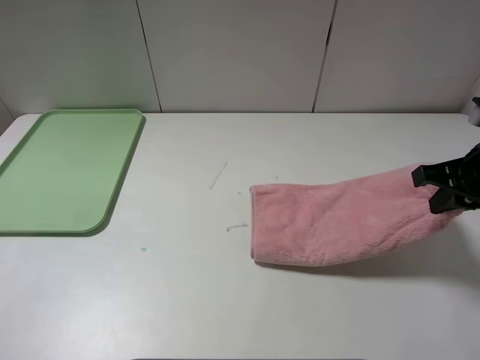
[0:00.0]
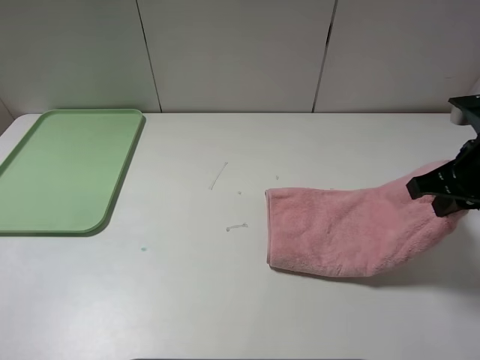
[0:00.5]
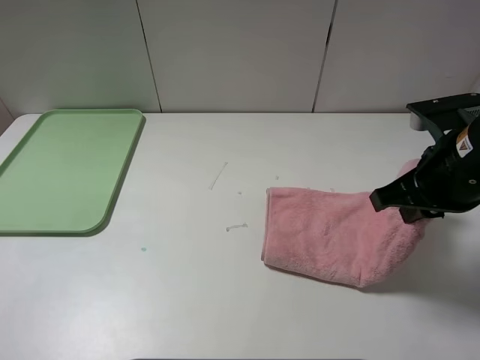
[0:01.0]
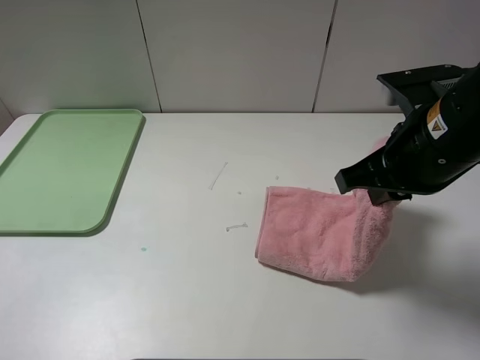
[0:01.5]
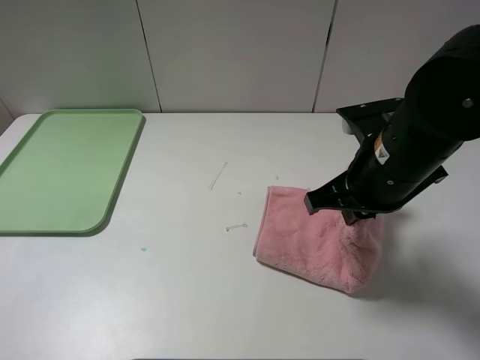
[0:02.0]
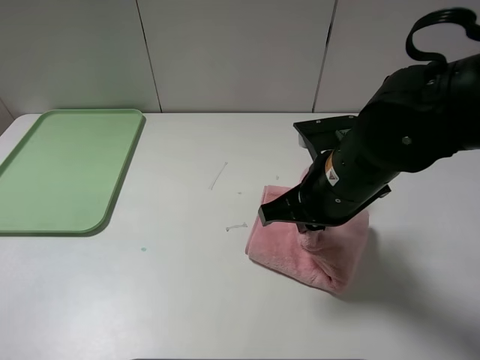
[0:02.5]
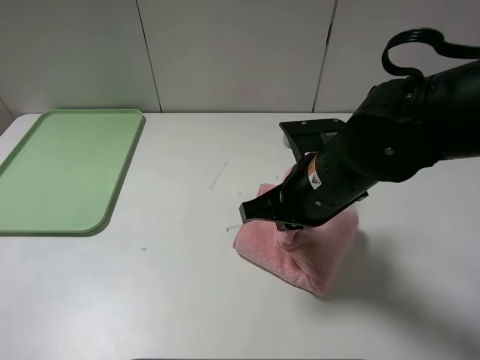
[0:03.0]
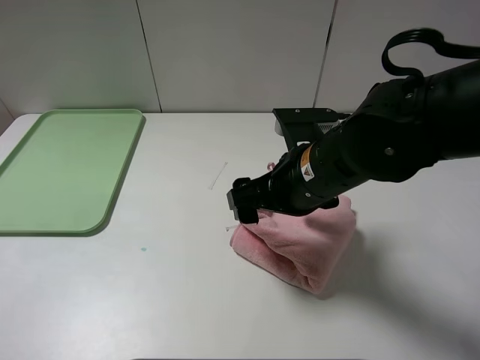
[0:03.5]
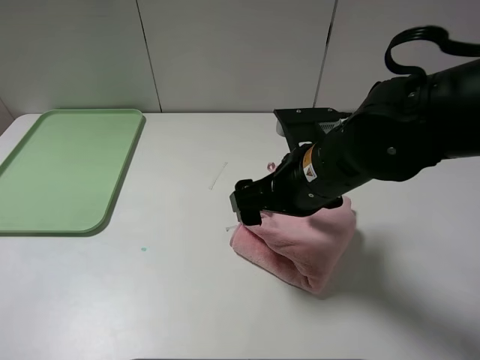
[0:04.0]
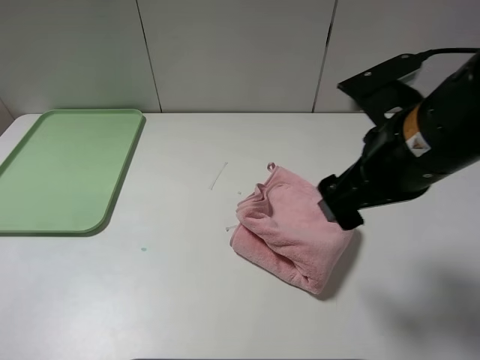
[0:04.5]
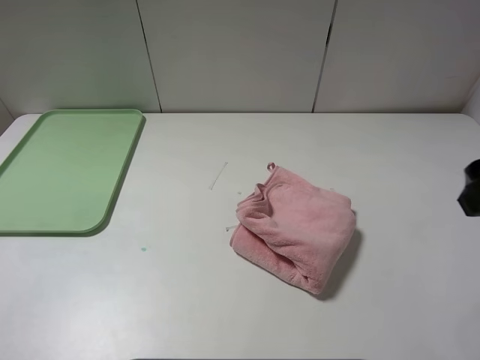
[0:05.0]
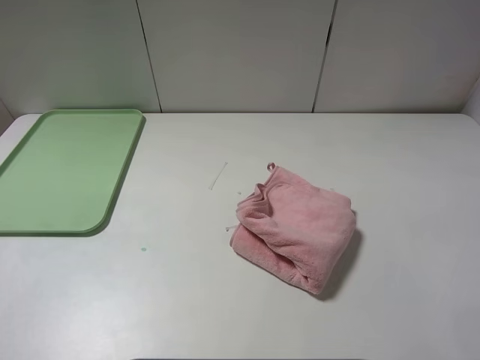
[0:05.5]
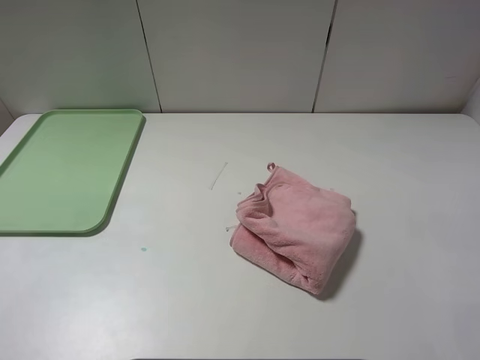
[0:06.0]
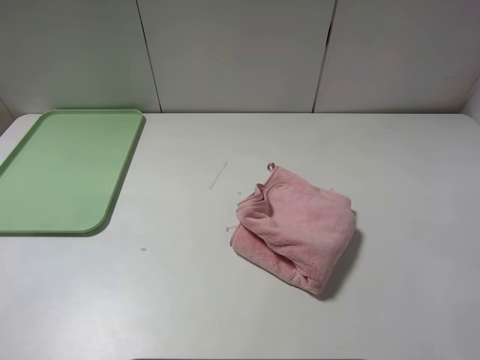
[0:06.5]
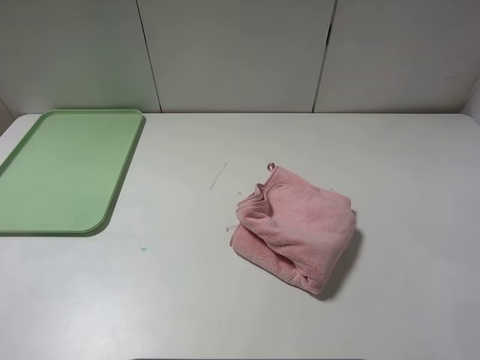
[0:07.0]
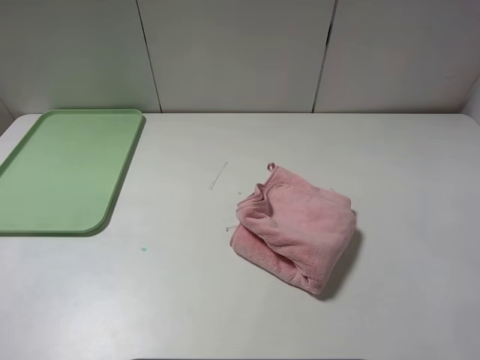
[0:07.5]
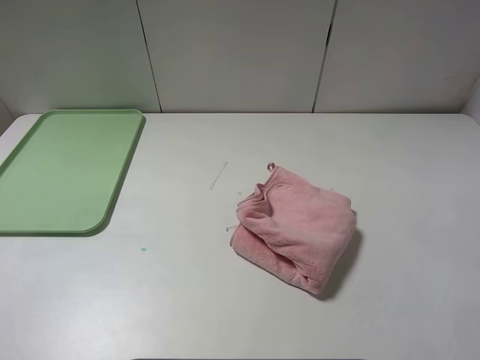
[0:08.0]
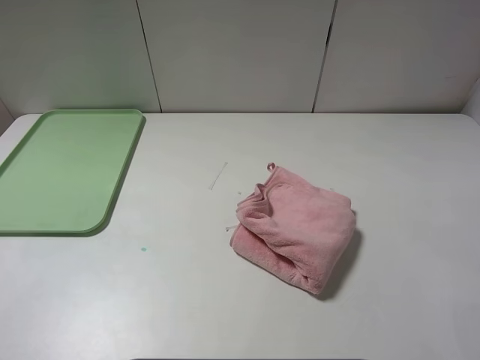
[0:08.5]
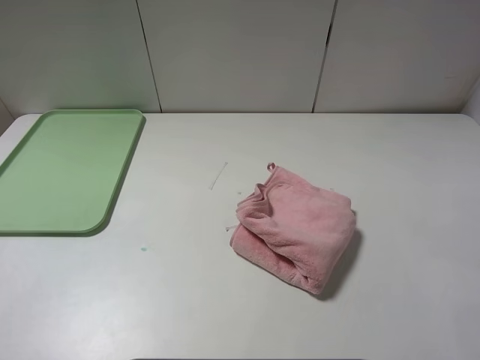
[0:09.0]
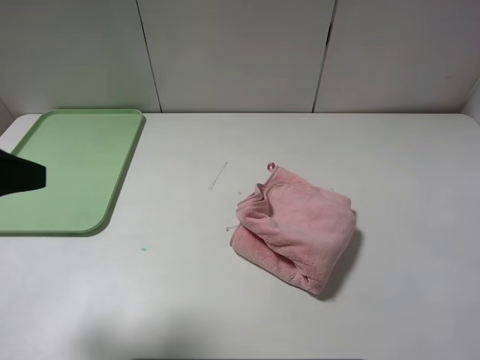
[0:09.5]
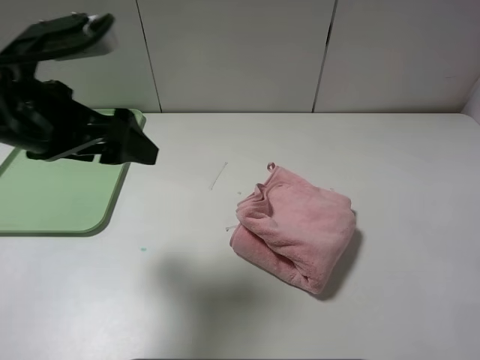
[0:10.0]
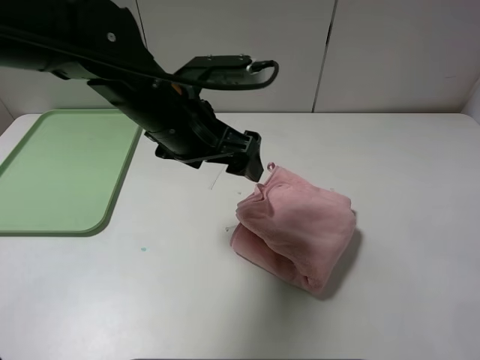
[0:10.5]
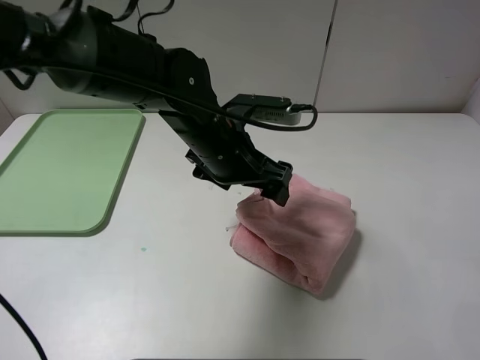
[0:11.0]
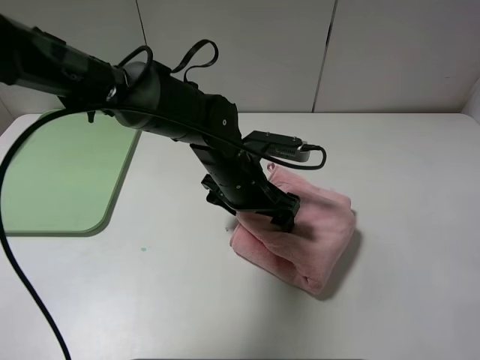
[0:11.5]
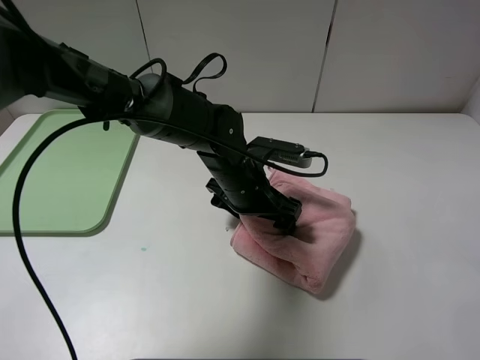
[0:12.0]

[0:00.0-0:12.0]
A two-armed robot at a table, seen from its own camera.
Step, 0:00.0 to 0:04.0: Fold the pink towel from right to left with right gripper.
0:00.0 to 0:02.0: The right gripper moves to the left, about 15 cm.
0:02.0 to 0:04.0: The right gripper travels to the left by roughly 5 cm, and opens.
0:04.0 to 0:06.0: The right gripper shifts about 30 cm to the right, backward and upward.
0:08.0 to 0:10.0: The left gripper heads forward and to the right, covering about 25 cm.
0:10.0 to 0:12.0: The left gripper shifts about 25 cm to the right, downward and forward.

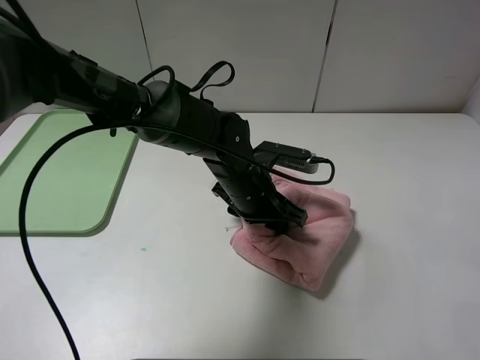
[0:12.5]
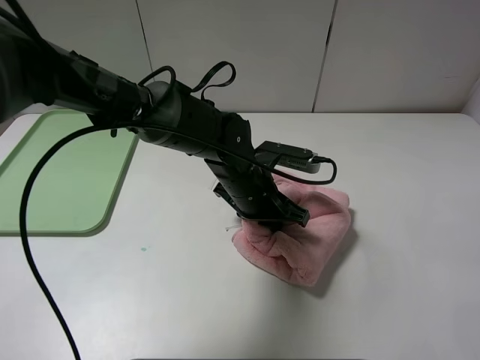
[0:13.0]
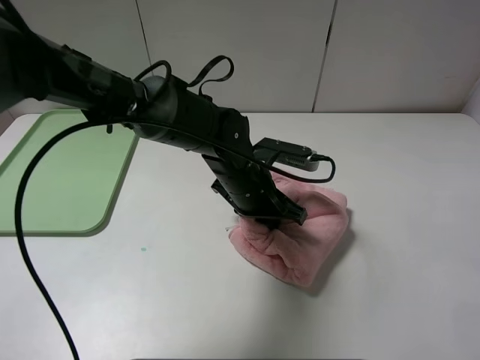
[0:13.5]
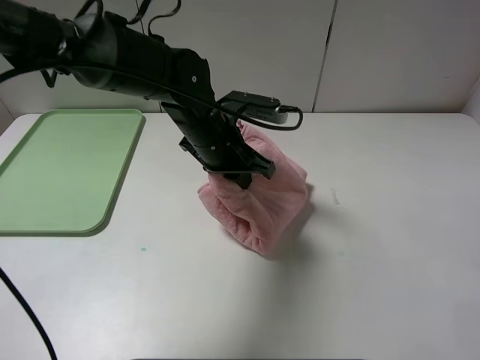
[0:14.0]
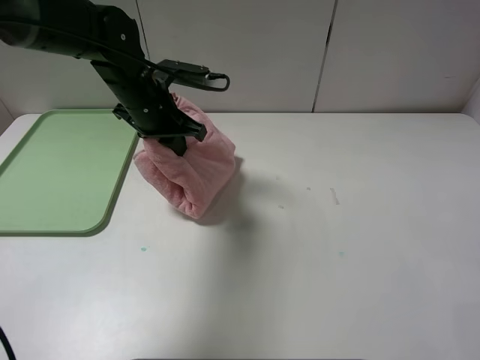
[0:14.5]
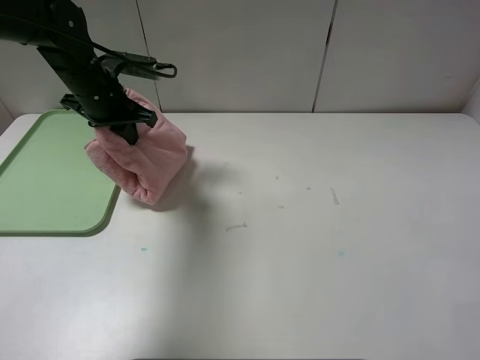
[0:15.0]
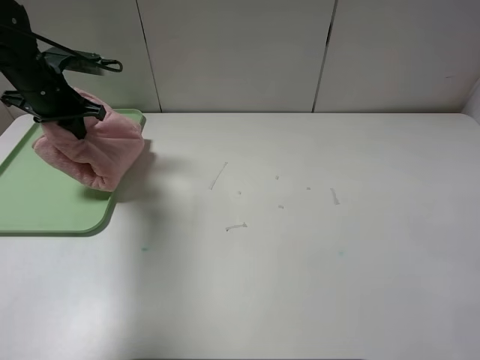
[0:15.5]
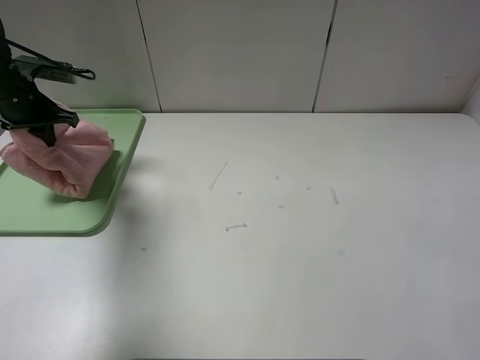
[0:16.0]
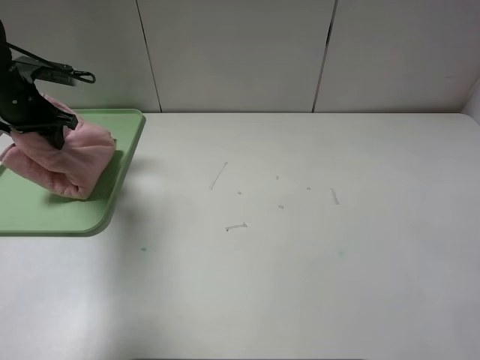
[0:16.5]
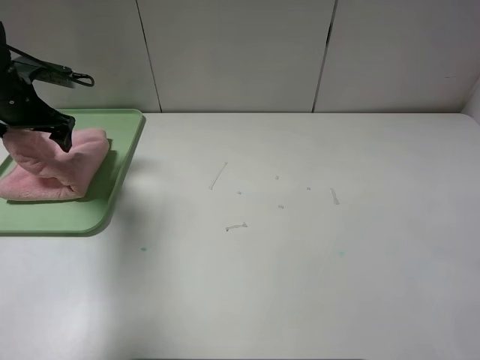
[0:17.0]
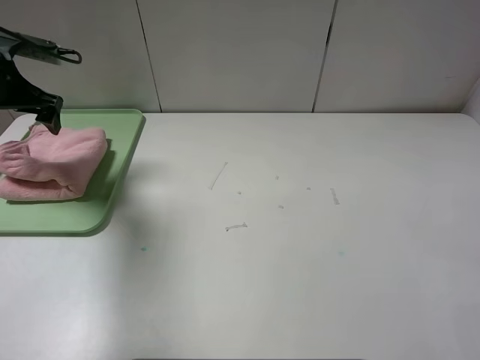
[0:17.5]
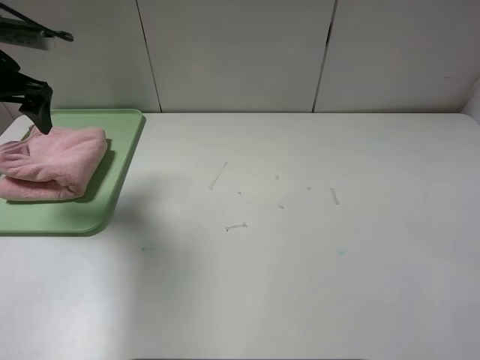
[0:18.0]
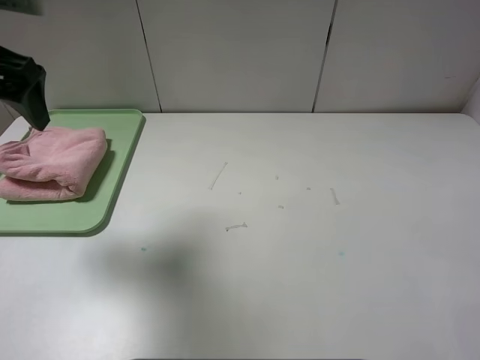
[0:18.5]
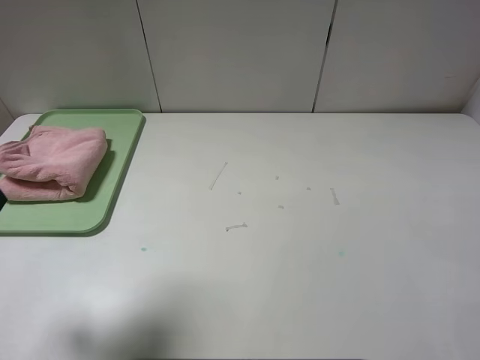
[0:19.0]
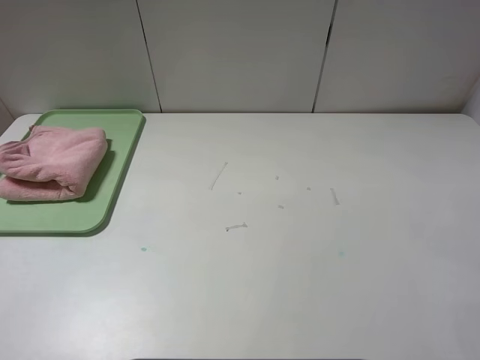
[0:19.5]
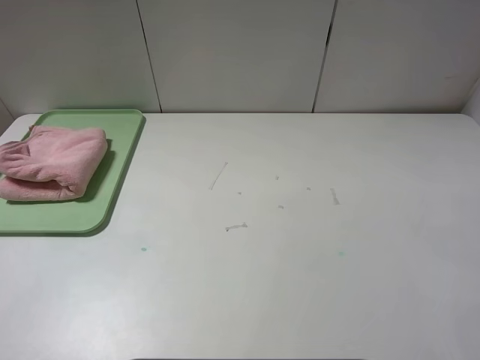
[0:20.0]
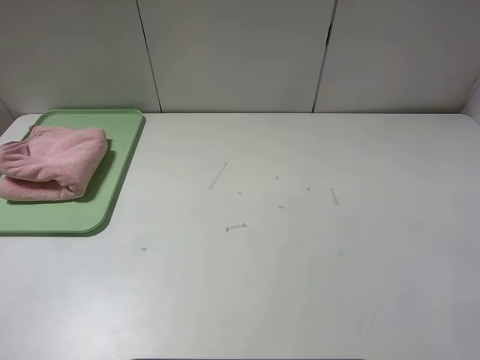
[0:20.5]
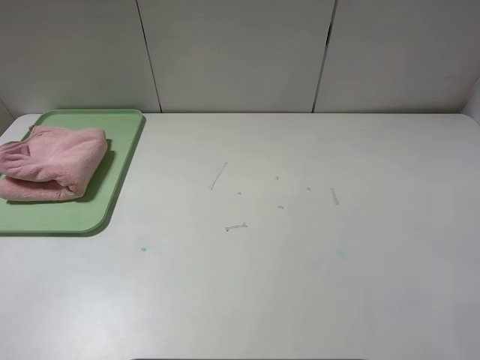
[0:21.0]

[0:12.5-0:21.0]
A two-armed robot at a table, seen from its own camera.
Step, 0:12.5 to 0:17.5: Place the folded pink towel on the tray with the left gripper.
0:12.5 to 0:14.5: The left gripper goes roughly 20 cm to the left, upward and forward.
0:14.5 to 0:16.5: The left gripper travels to the left by approximately 20 cm, and opens.
0:16.5 to 0:19.0: The left gripper travels backward and upward by approximately 30 cm.
0:19.0 to 0:21.0: The left gripper is displaced backward by about 15 cm.
